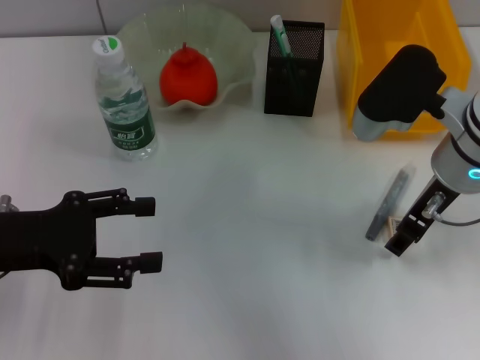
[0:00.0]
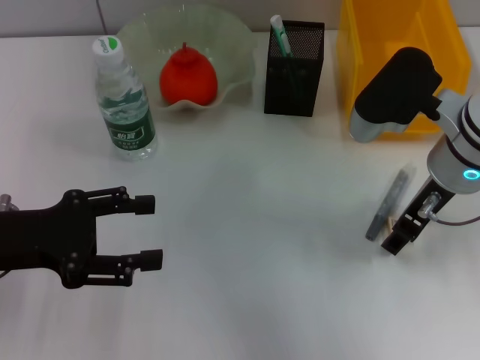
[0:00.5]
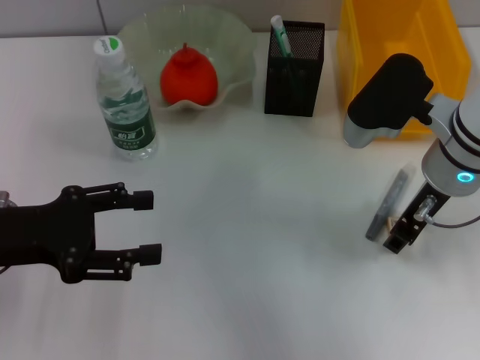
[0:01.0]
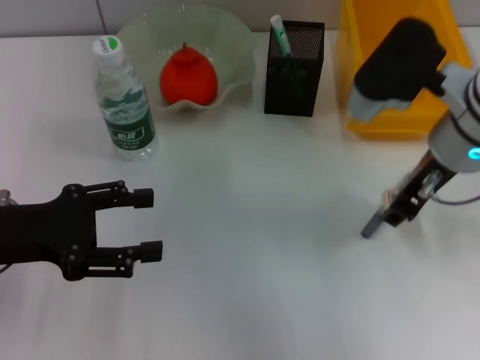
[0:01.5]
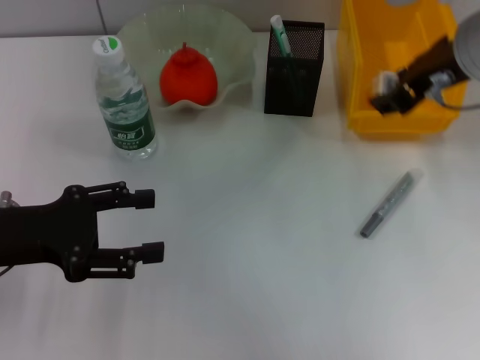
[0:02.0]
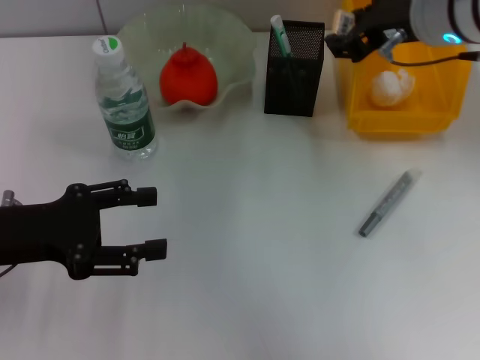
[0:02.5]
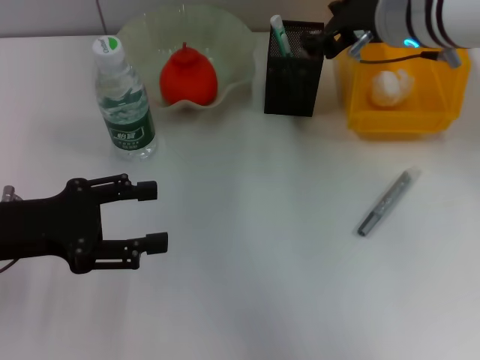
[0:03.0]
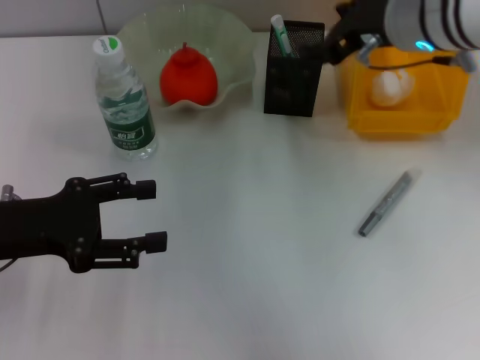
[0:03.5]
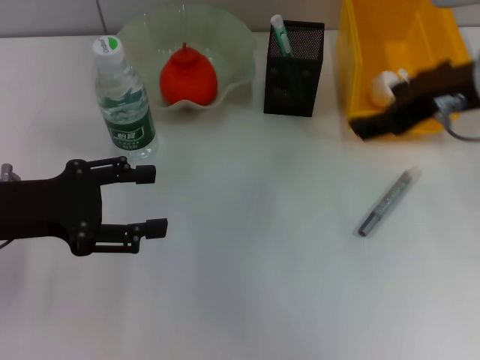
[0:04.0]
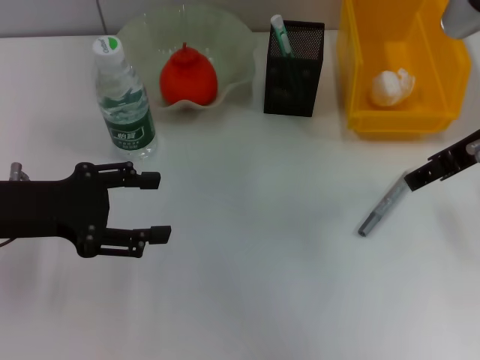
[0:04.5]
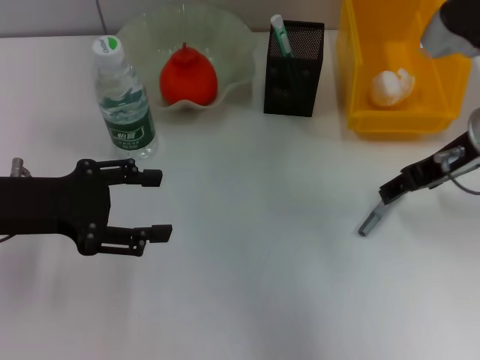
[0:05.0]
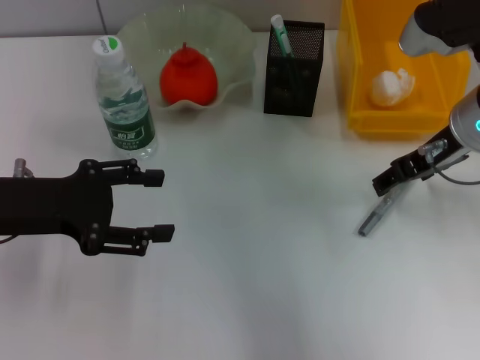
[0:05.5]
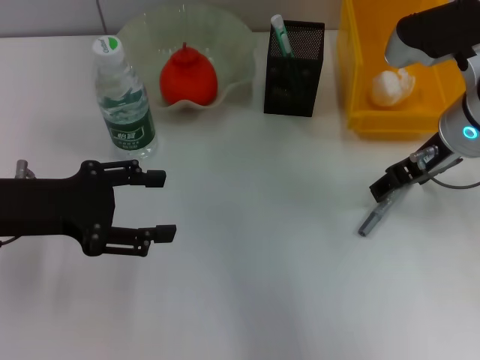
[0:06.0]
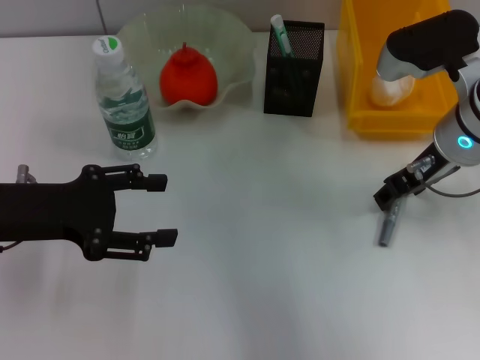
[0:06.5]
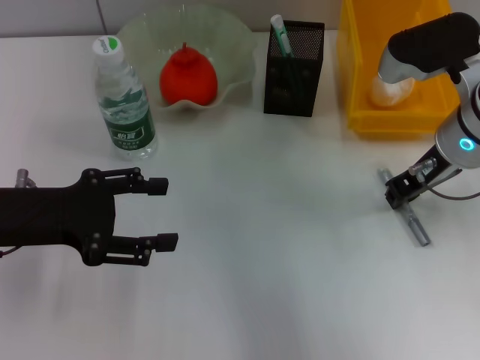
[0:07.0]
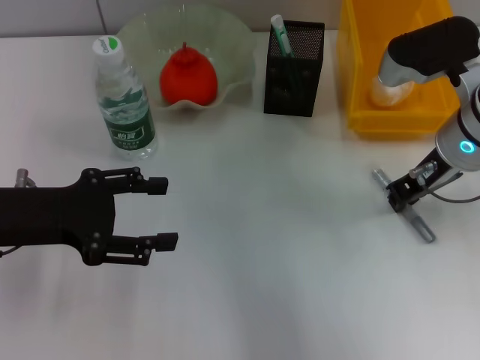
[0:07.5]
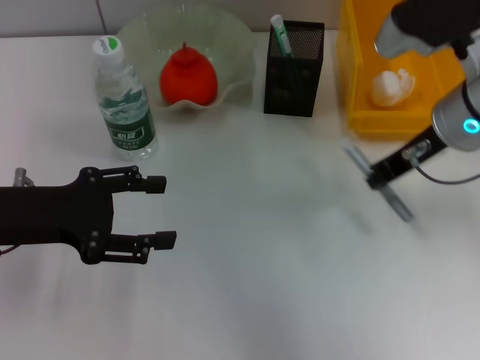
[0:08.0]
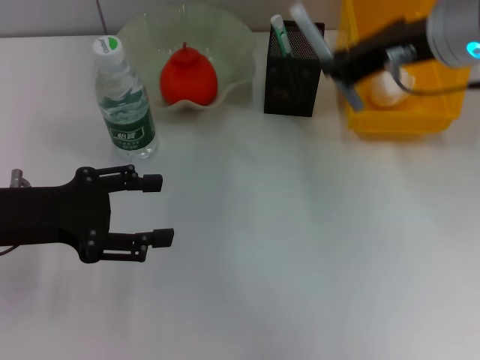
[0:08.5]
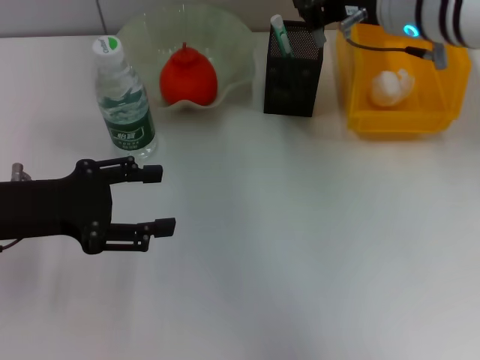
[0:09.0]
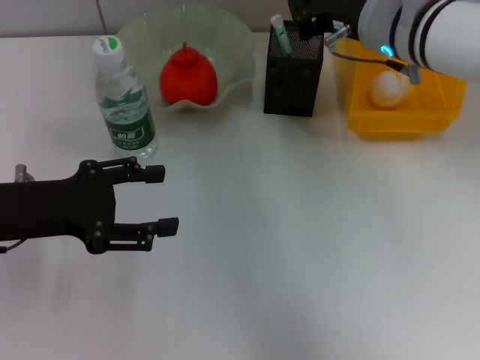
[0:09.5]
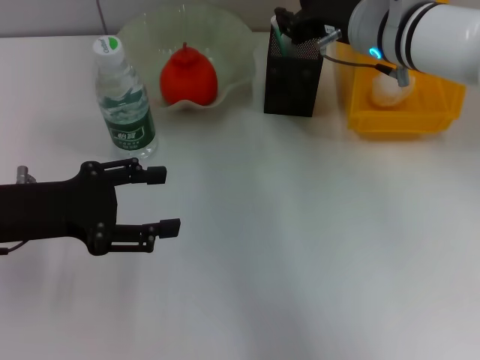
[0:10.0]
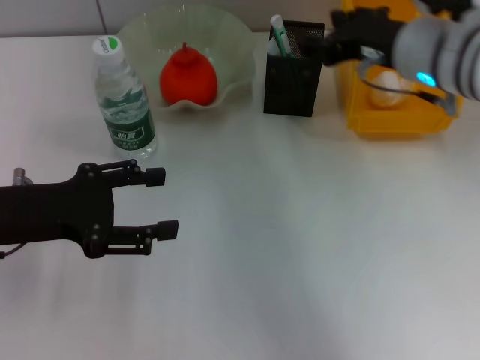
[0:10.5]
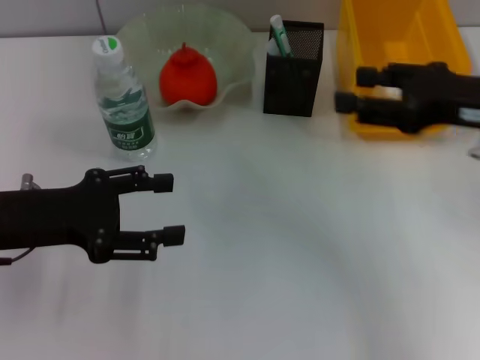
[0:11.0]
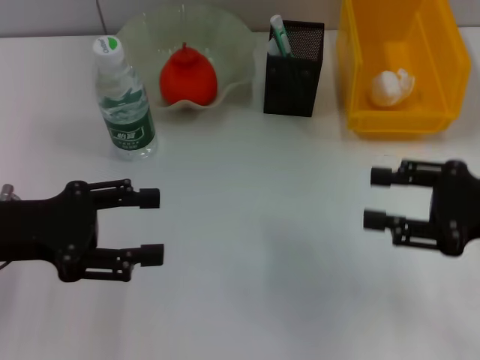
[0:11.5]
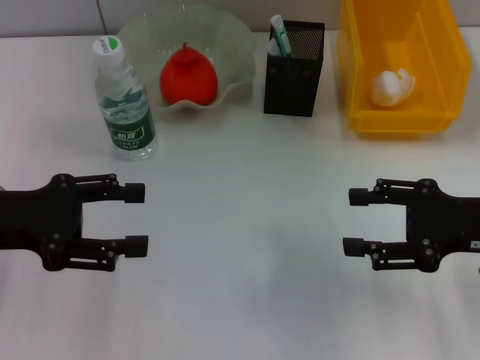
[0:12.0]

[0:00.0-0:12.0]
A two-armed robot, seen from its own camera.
Step, 0:01.5 to 0:03.0: Put the eraser into the pen holder with the right hand.
Step, 0:03.5 to 0:07.5: Grab the gray glue with the right hand.
Step, 0:08.0 to 0:10.0: Place the gray glue into the pen holder with the right hand.
0:00.0 to 0:02.0: The right gripper heads upward, covering approximately 10 cm, and closes up.
0:02.0 to 0:04.0: The right gripper opens up.
0:04.0 to 0:06.0: The right gripper is displaced downward and forward by approximately 10 cm.
0:06.0 to 0:08.0: The right gripper closes its fingers.
0:08.0 to 0:10.0: The right gripper is displaced forward by about 5 cm, and goes upward and returns, approximately 5 cm each way.
0:10.0 to 0:12.0: The right gripper is displaced backward and to the right by about 20 cm, and opens up.
